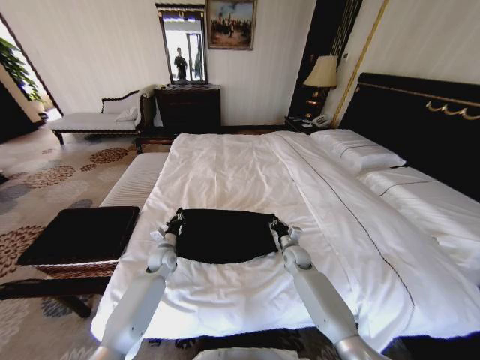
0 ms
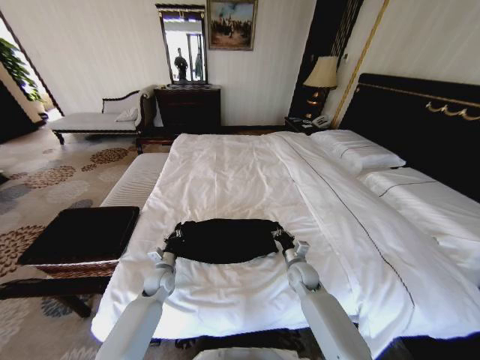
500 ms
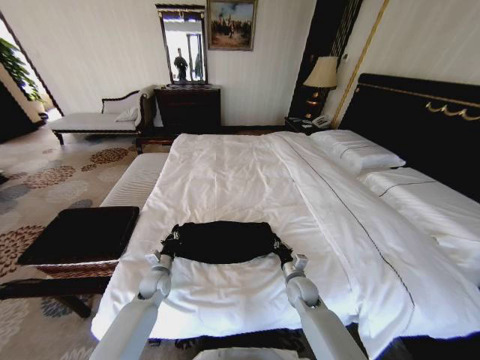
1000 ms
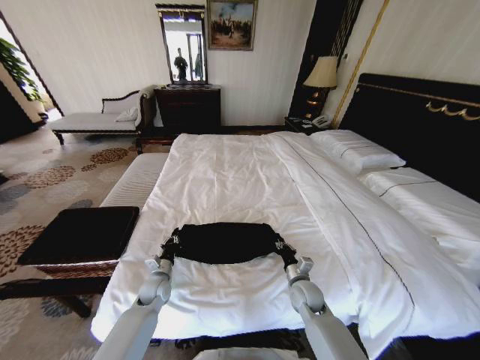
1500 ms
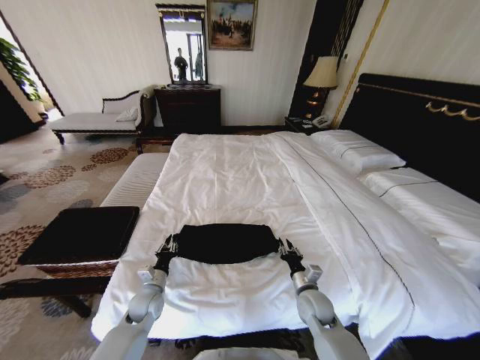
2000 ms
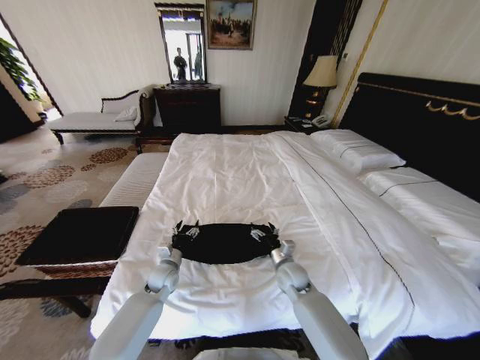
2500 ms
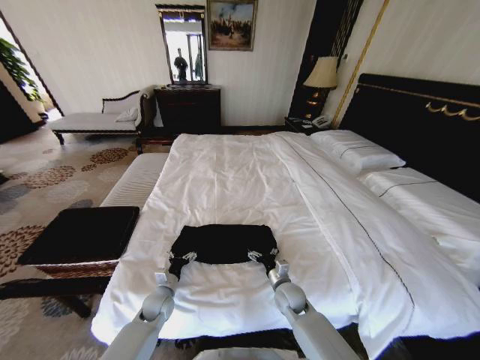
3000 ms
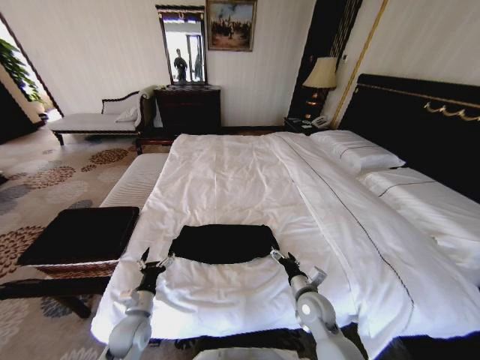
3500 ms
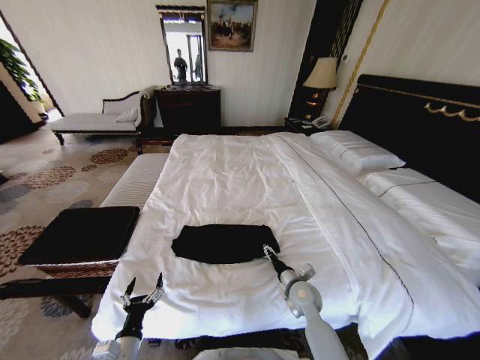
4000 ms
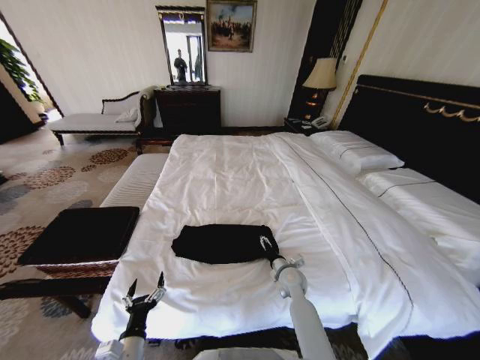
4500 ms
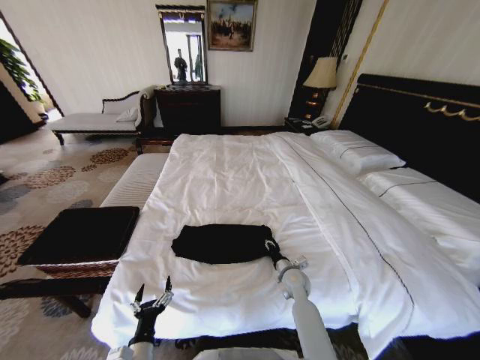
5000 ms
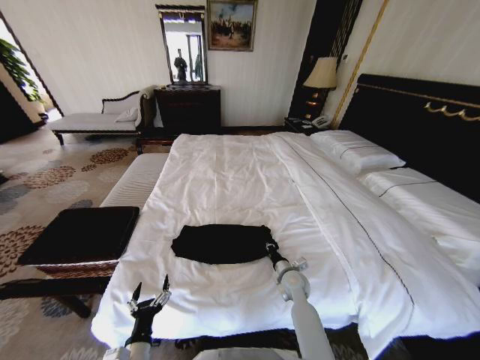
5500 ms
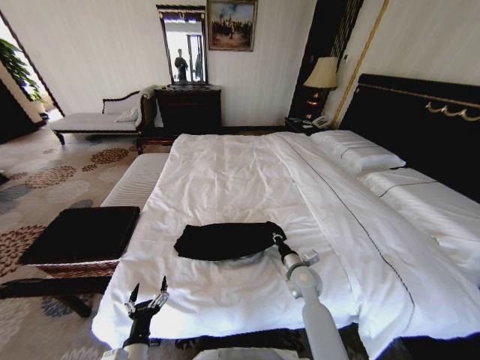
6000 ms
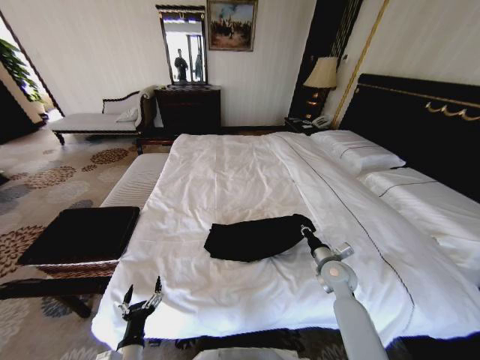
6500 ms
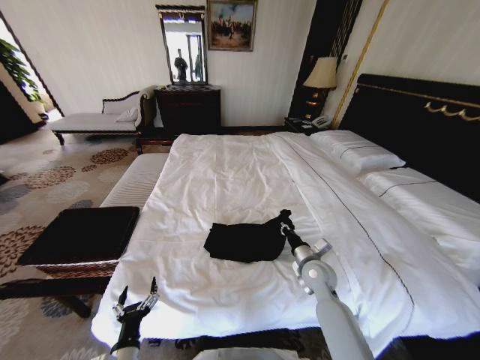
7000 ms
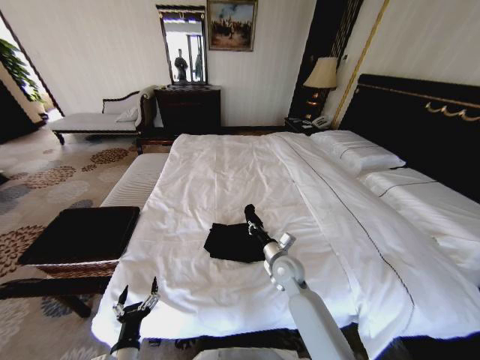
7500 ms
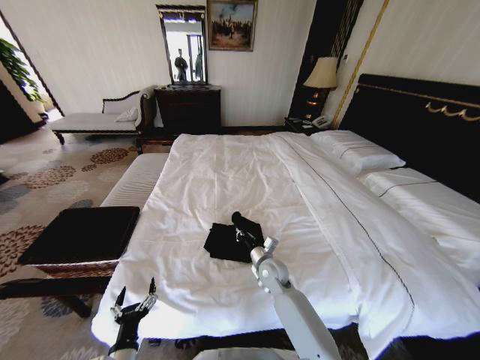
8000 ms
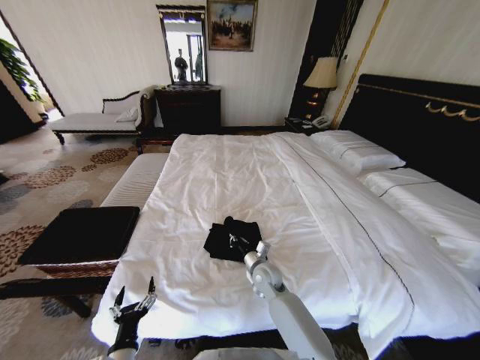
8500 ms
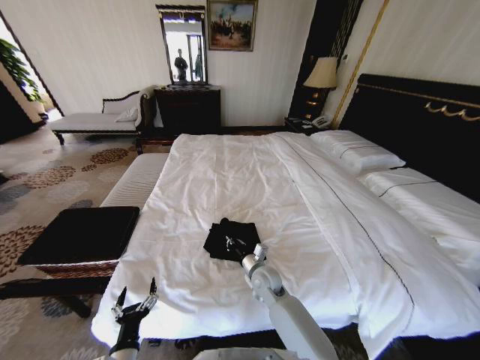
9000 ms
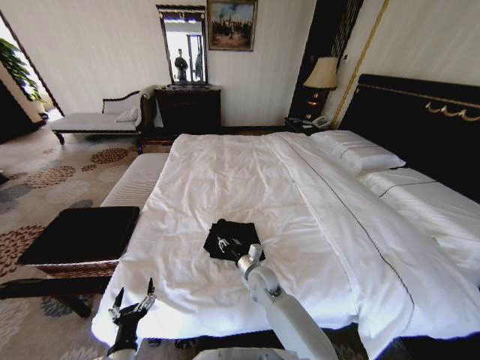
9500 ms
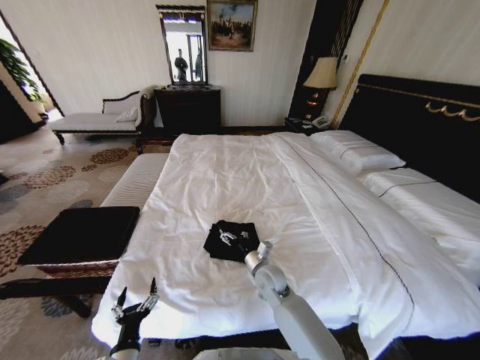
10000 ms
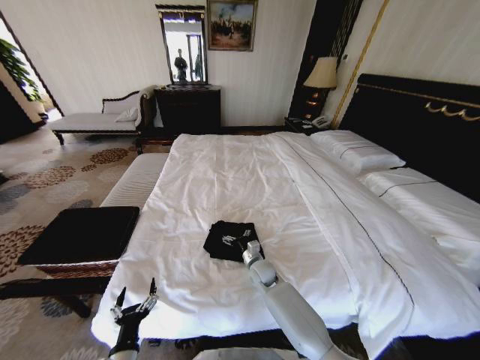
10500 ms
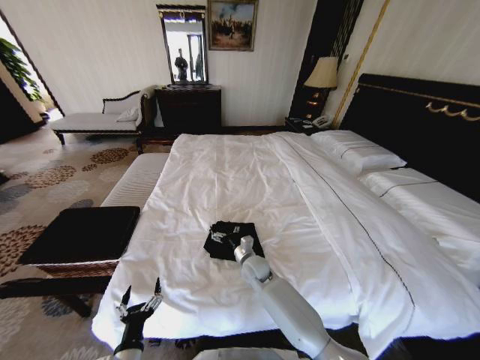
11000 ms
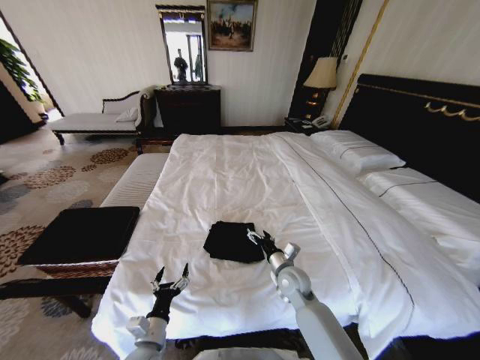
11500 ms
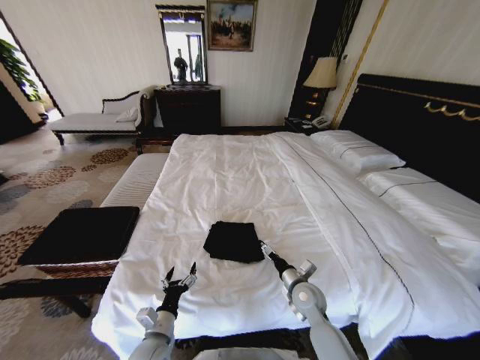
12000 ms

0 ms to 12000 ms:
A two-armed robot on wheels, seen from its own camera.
Task of the whole recording: Fold the clothes on the bed and place them into the basket.
0 ms to 2000 ms: Both grippers move backward, about 15 cm.
2000 ms to 4000 ms: The right gripper travels forward and back again, about 10 cm each way, and opens up; the left gripper goes roughly 20 cm backward, and opens up.
4000 ms to 6000 ms: The right gripper closes its fingers.
6000 ms to 8000 ms: The right gripper moves to the left, approximately 10 cm.
8000 ms to 10000 ms: The right gripper opens up.
10000 ms to 12000 ms: The left gripper moves forward, roughly 10 cm; the right gripper heads to the right, covering about 10 cm.

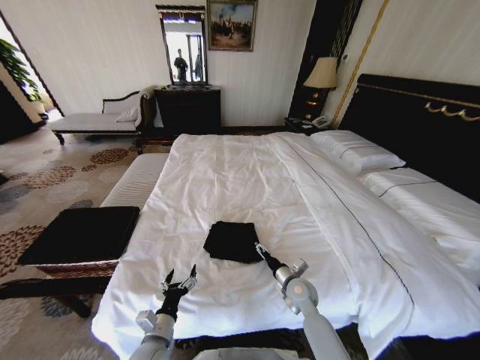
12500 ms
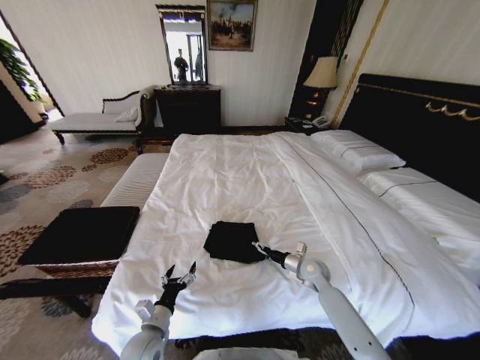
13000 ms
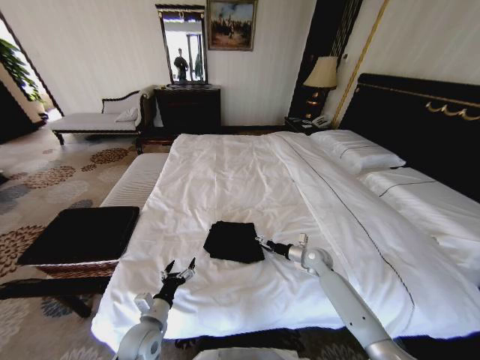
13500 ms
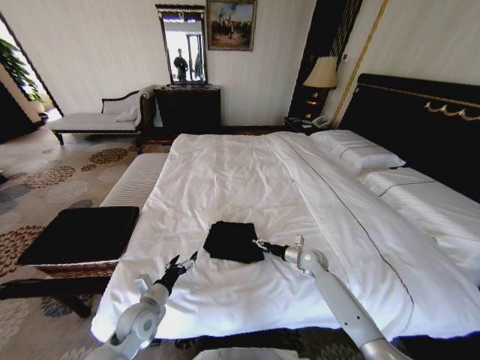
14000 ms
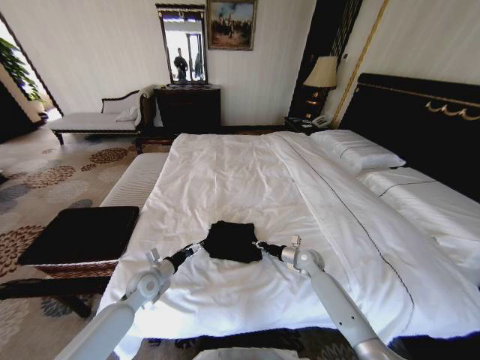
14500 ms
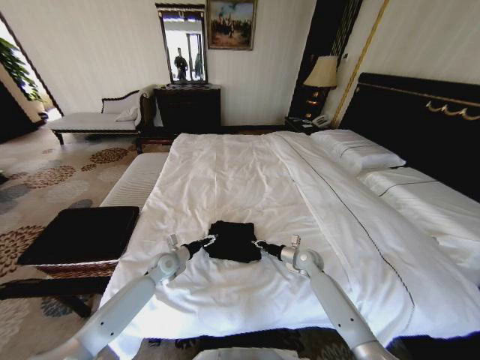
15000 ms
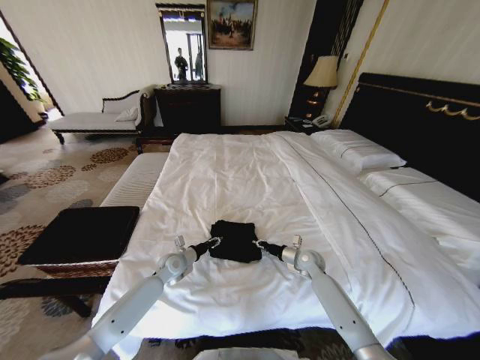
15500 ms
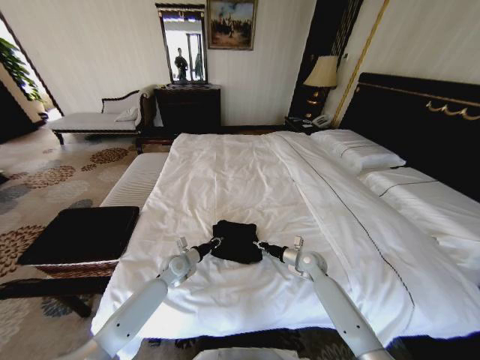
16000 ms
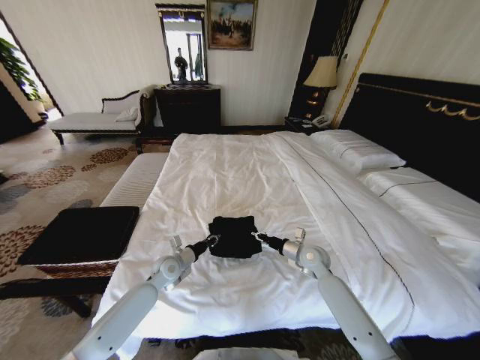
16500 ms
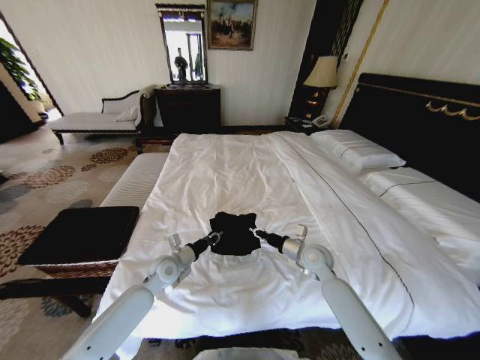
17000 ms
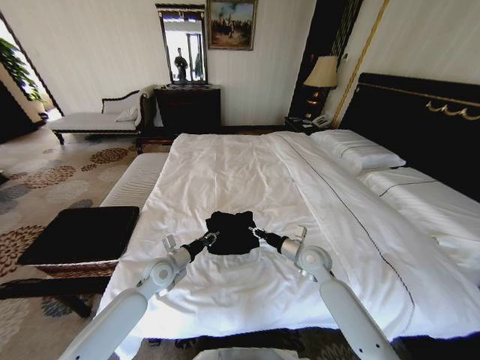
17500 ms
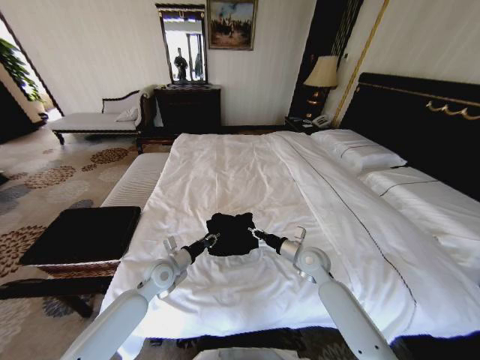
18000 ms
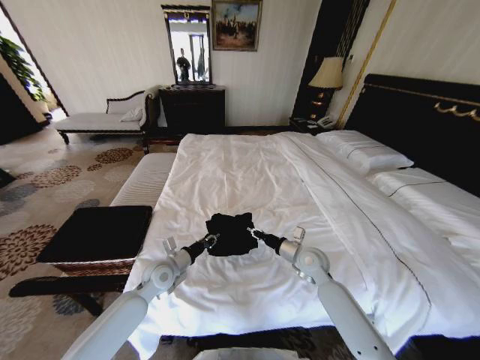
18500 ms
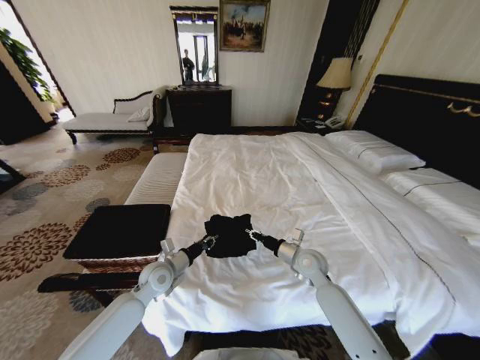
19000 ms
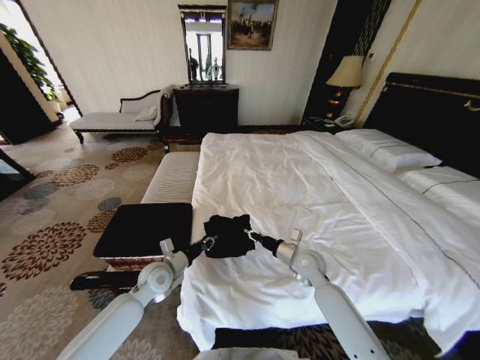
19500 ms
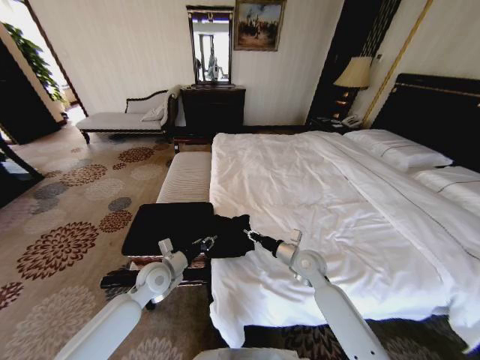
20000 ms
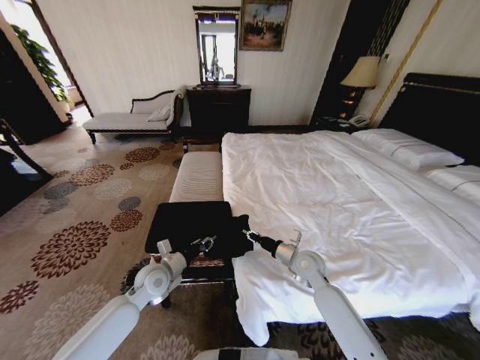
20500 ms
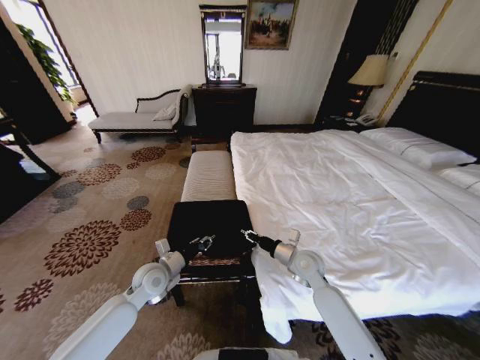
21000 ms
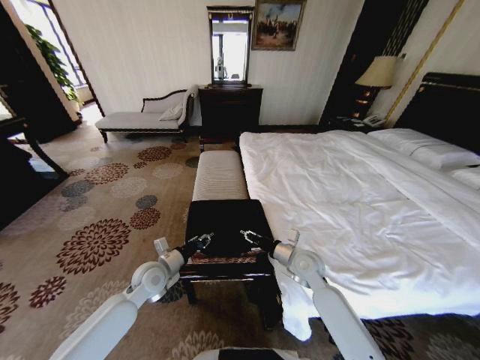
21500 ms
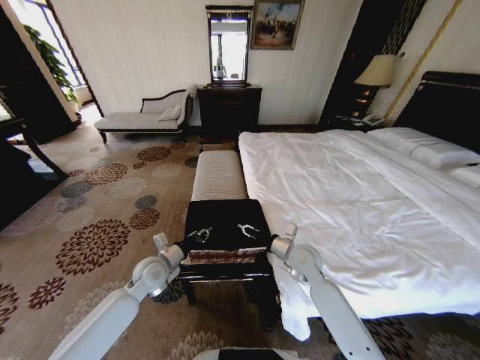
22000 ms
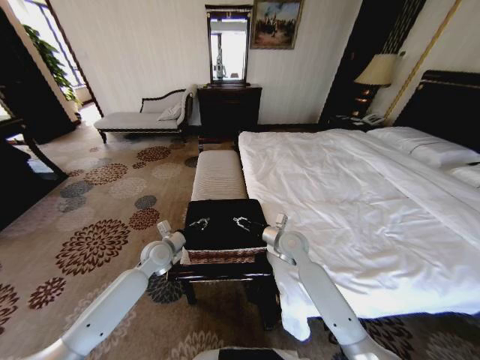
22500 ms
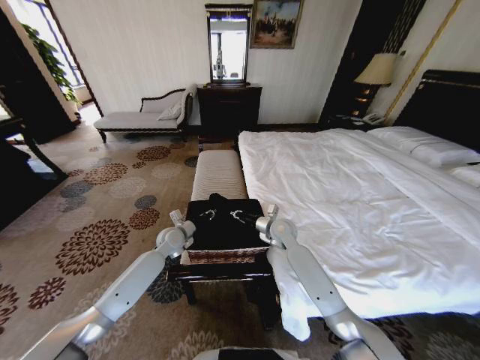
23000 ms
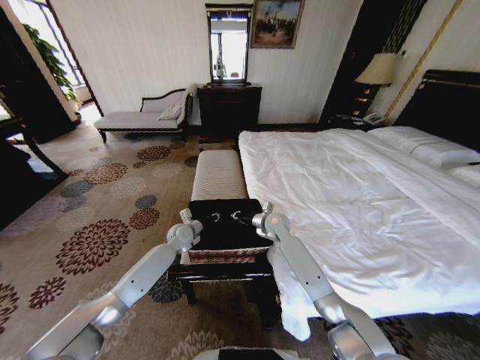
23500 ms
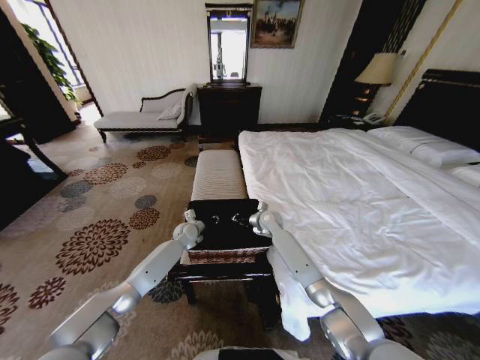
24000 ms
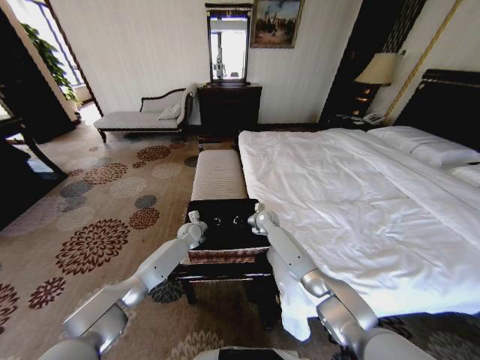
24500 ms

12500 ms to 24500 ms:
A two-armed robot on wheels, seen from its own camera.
Task of the whole recording: Fold the clothes on the bed and place them into the basket.
12500 ms to 14500 ms: The right gripper goes some 15 cm forward and to the right, and closes up. The left gripper goes about 15 cm forward.
14500 ms to 16500 ms: The left gripper travels to the right and forward by some 10 cm, and closes up; the right gripper shifts some 5 cm upward.
20500 ms to 22500 ms: The grippers both shift forward by about 5 cm.
22500 ms to 24500 ms: The right gripper moves forward, some 15 cm. The left gripper is displaced forward, downward and to the right by about 15 cm.

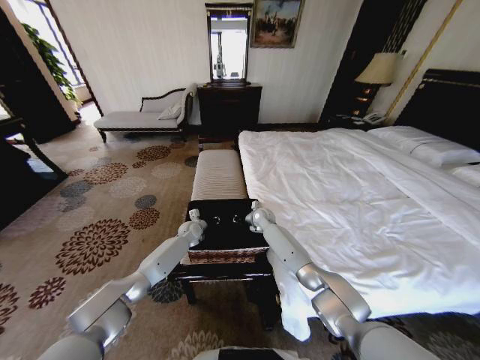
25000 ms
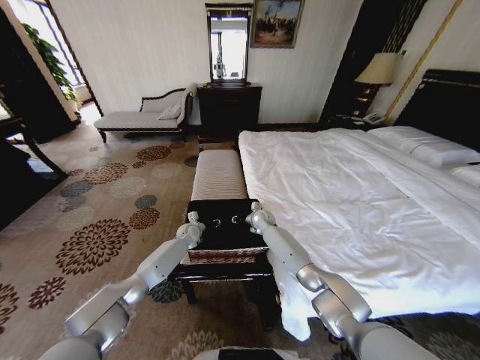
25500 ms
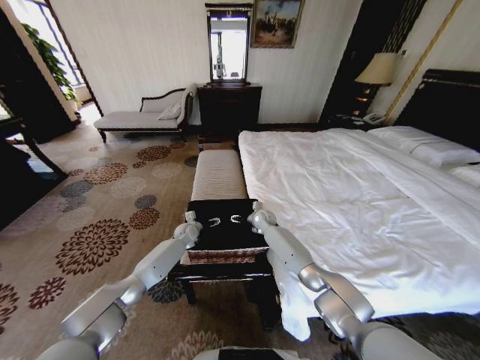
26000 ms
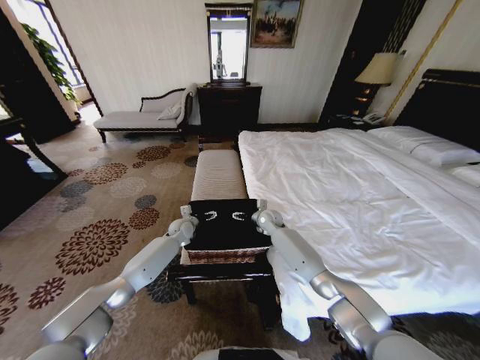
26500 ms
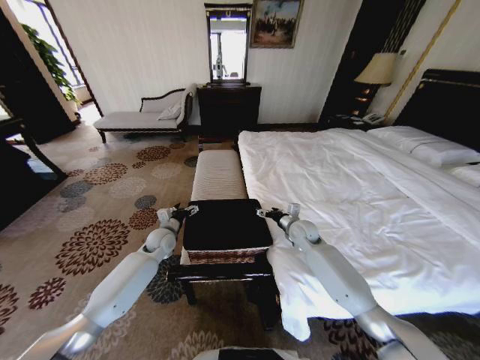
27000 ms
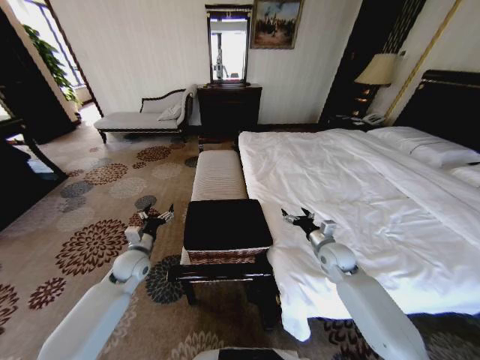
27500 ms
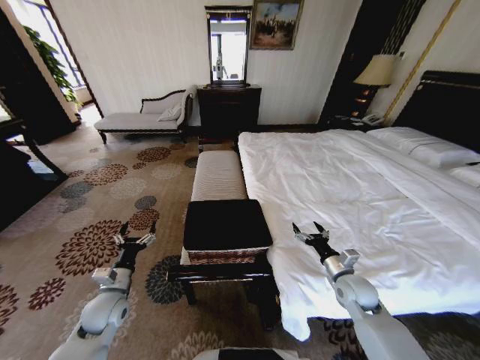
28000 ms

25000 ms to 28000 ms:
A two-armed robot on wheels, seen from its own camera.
Task of the whole recording: Fold the clothes on the bed and place them into the basket.
25000 ms to 26500 ms: The right gripper opens its fingers; the left gripper opens up.
26500 ms to 28000 ms: The right gripper shifts some 35 cm backward and to the right, while the left gripper is displaced backward and to the left by some 30 cm.
